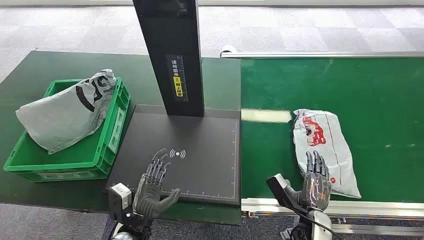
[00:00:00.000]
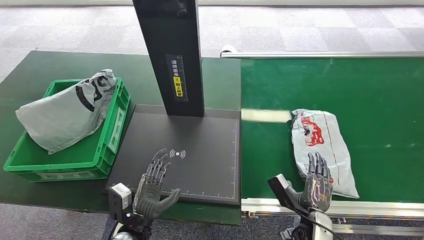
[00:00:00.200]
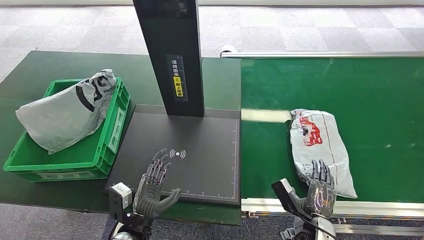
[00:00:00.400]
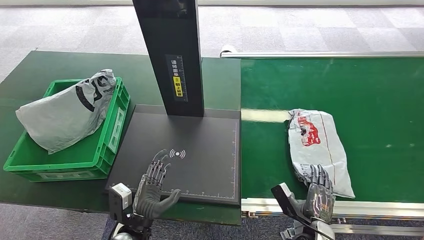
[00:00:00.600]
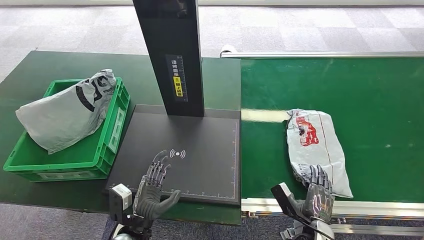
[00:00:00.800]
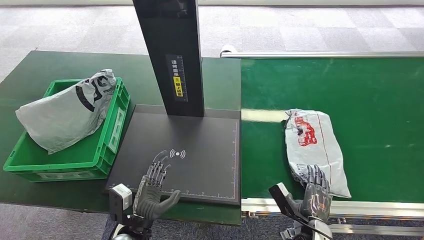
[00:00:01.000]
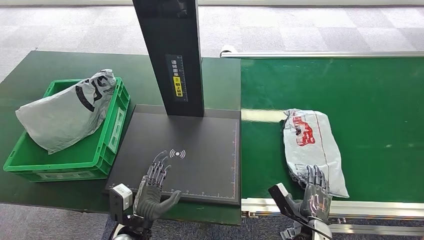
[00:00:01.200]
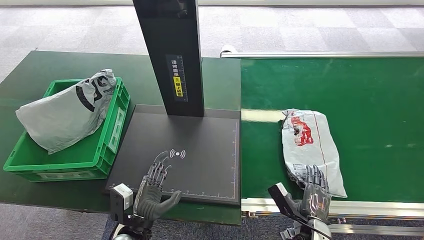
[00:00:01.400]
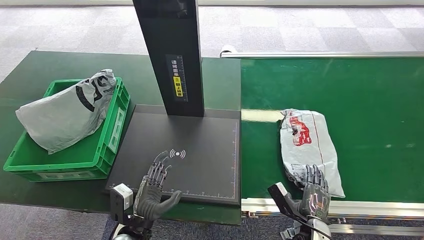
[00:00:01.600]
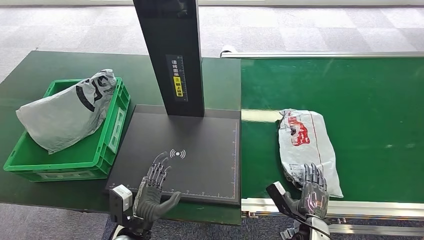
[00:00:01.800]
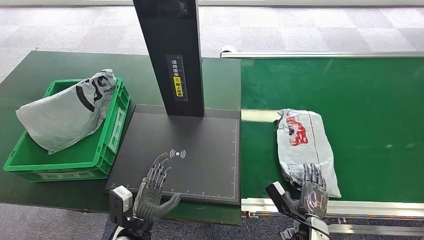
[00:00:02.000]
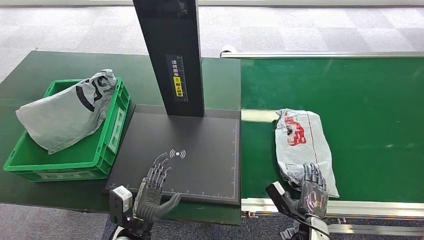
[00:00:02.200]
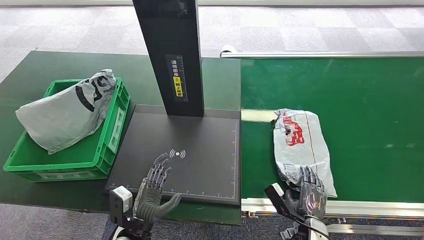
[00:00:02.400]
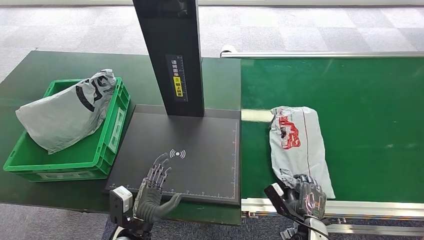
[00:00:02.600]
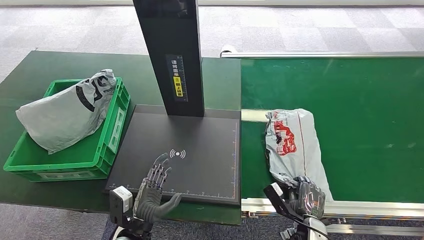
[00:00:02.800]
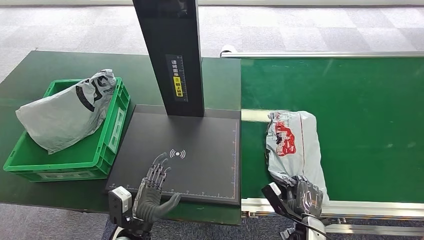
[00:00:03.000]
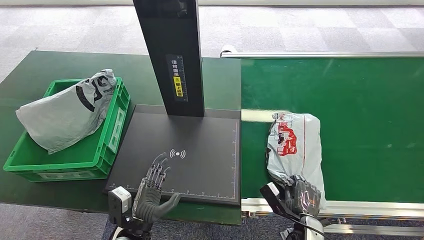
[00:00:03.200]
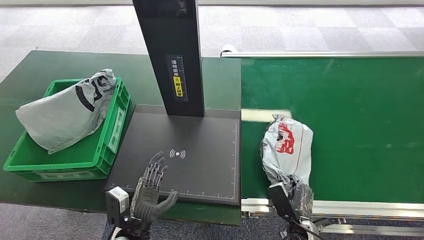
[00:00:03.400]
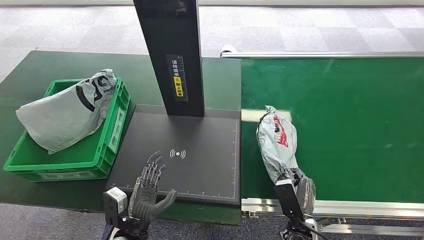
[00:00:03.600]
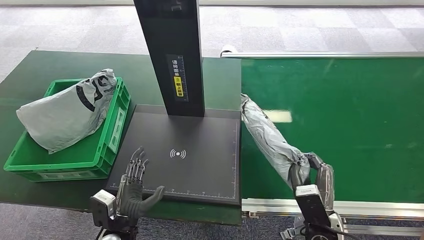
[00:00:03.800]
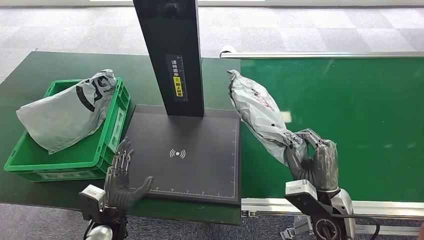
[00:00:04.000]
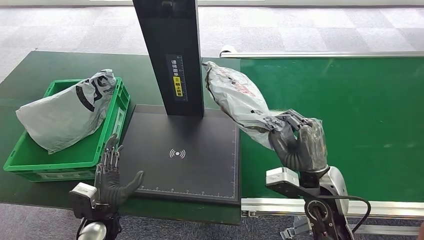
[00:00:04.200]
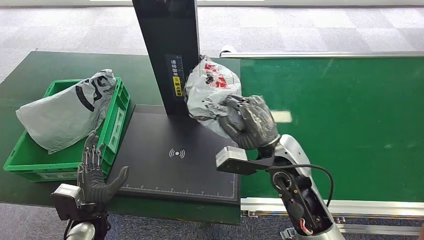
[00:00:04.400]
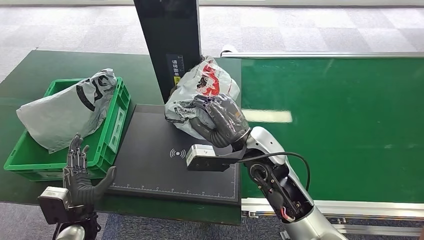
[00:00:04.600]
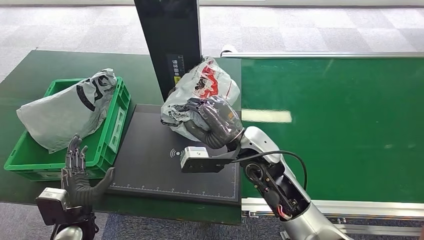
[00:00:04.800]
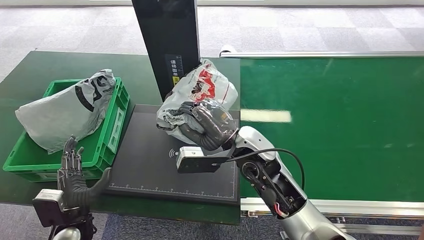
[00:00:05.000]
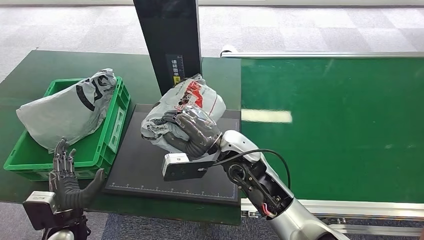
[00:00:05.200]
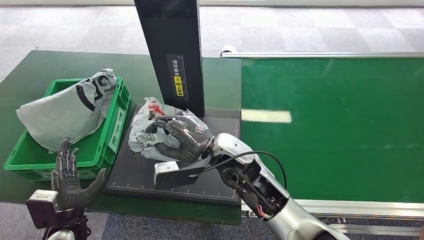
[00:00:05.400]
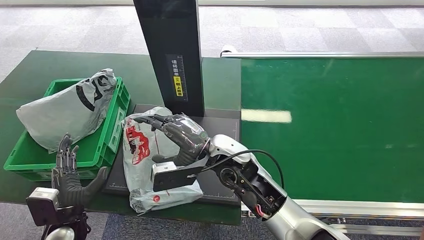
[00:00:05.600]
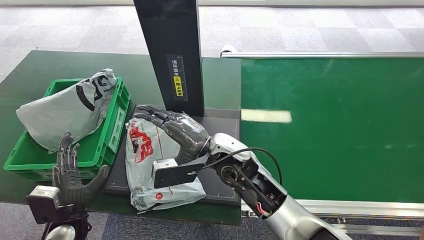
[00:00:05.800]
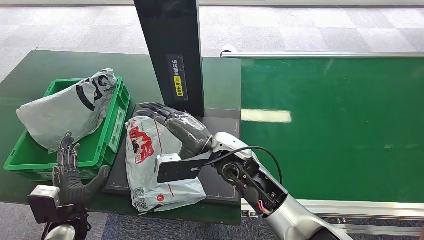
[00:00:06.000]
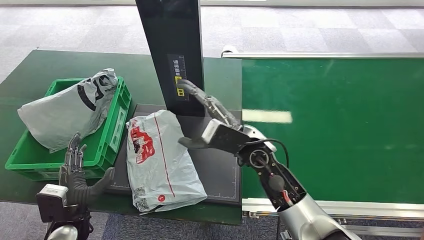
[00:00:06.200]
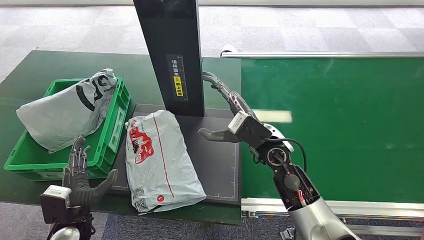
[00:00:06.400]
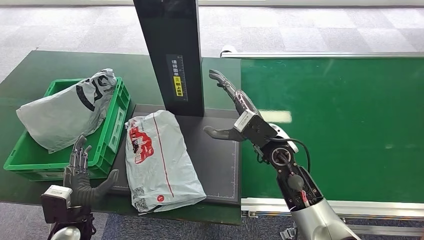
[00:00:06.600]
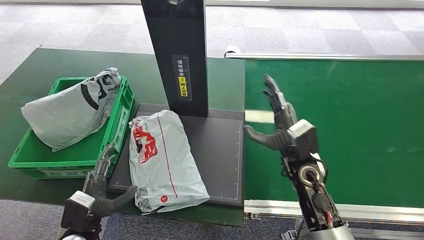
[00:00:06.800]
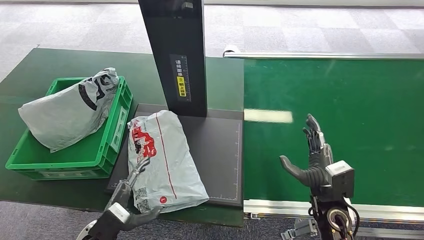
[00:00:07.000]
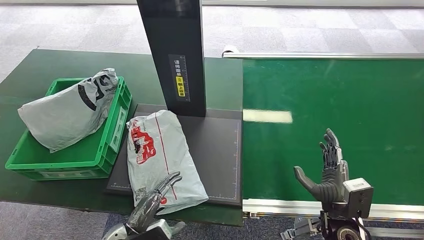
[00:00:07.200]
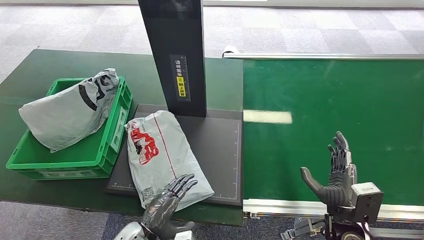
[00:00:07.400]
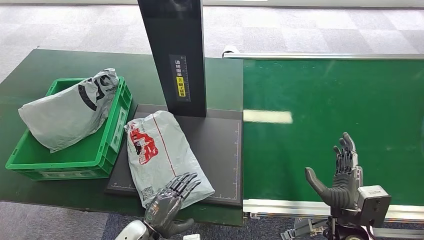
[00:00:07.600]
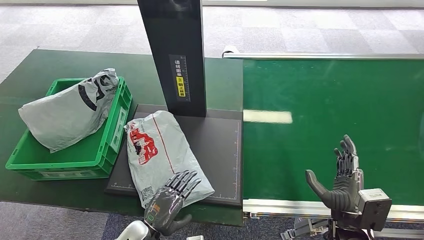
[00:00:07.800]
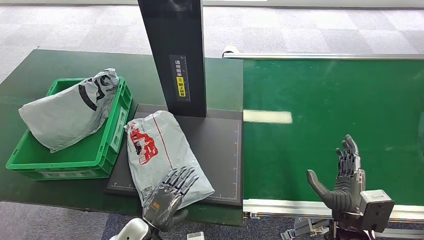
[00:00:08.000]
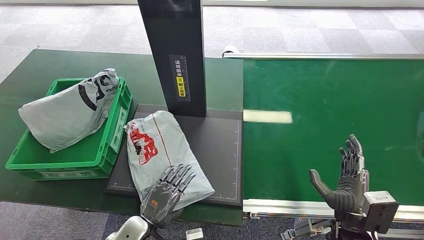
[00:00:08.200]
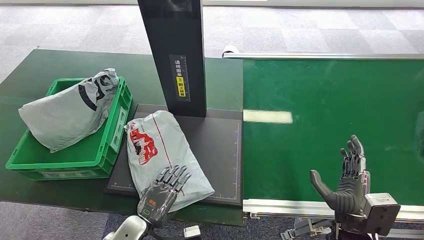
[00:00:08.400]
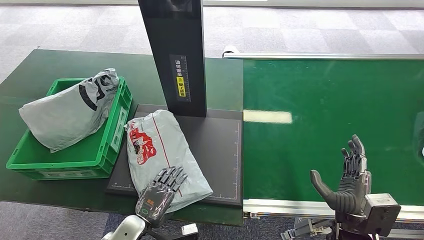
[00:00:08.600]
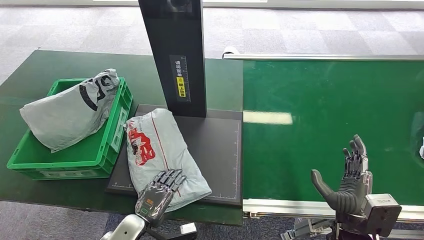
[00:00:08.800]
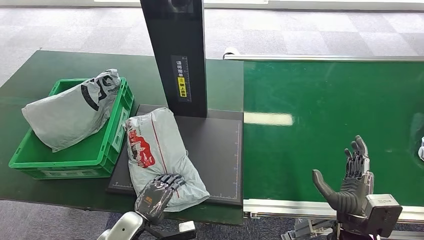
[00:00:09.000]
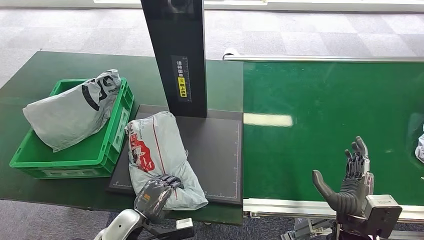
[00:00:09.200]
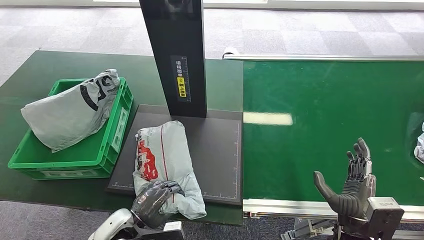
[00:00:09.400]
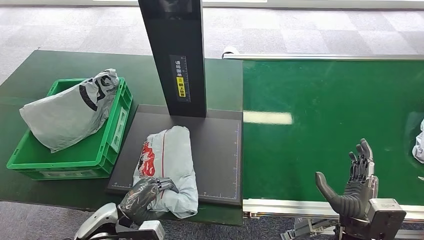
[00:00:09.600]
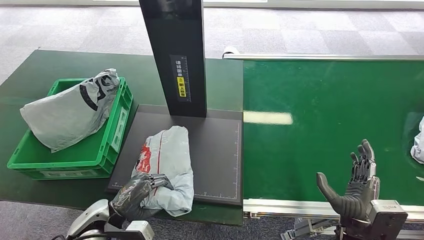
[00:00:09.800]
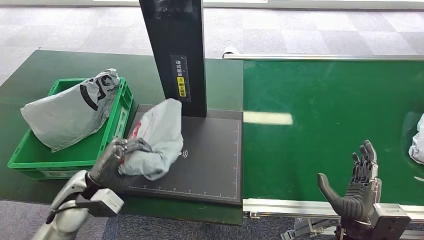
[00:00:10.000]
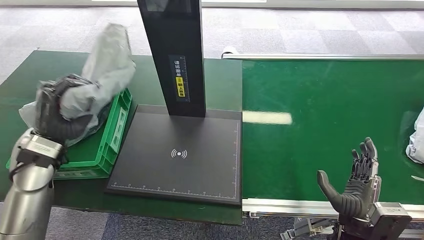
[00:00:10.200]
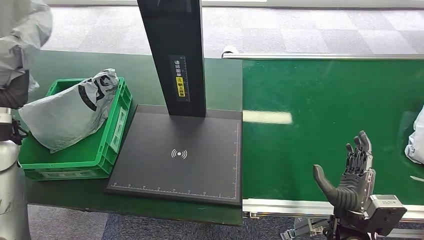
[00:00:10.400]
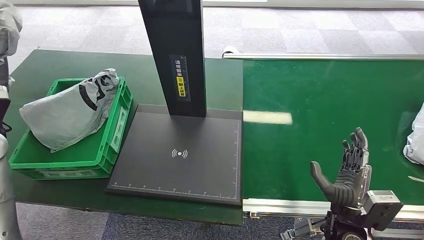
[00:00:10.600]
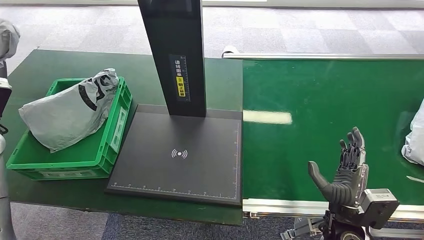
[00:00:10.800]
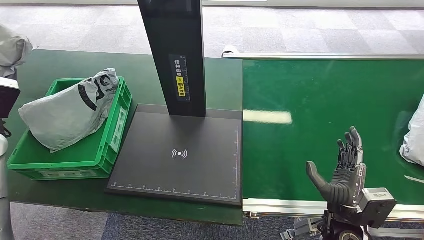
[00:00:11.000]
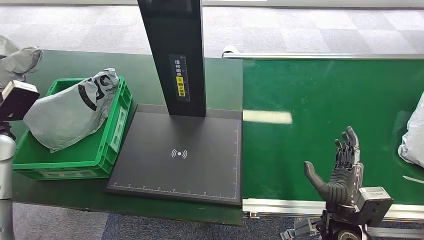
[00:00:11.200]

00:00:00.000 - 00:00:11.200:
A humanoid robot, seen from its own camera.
Task of the whole recording: Weigh the package on the weighing device and place it in the left basket.
Step, 00:00:00.000 - 00:00:04.000: Pick up the package from the conveyor belt.
Step, 00:00:04.200 - 00:00:06.400: Place the package onto the inbound machine.
Step, 00:00:06.800 - 00:00:10.200: Pick up the package from the inbound machine.
00:00:01.600 - 00:00:03.200: The hands make only small movements.
00:00:03.200 - 00:00:04.800: The left hand heads to the left, covering approximately 15 cm, while the right hand travels upward, to the left and forward by roughly 35 cm.
00:00:04.800 - 00:00:06.400: The right hand ends up approximately 5 cm from where it was.
00:00:08.000 - 00:00:09.600: The left hand moves to the left, about 5 cm.
00:00:09.600 - 00:00:11.200: The left hand goes approximately 35 cm to the left, upward and forward.

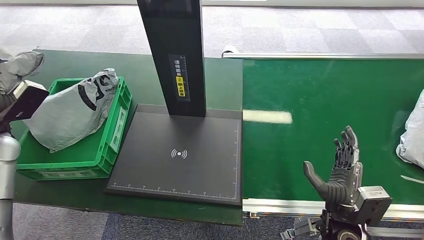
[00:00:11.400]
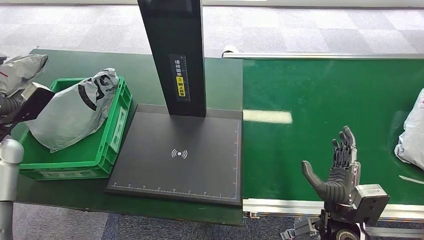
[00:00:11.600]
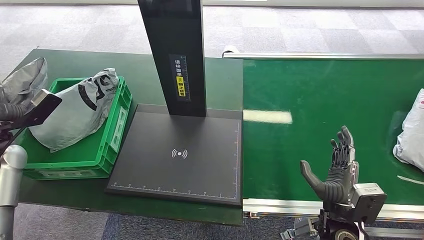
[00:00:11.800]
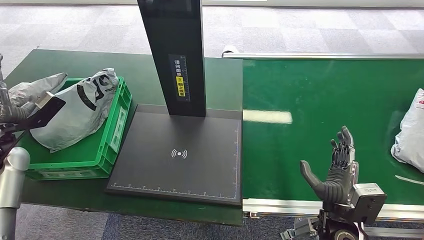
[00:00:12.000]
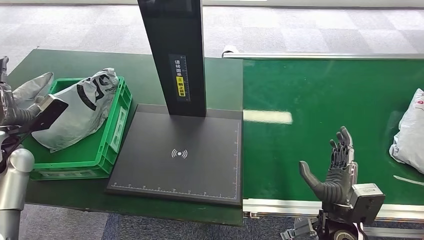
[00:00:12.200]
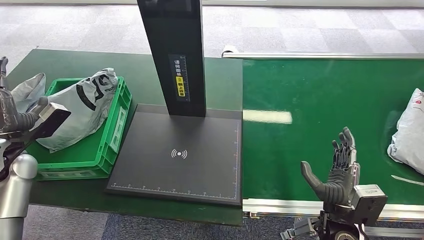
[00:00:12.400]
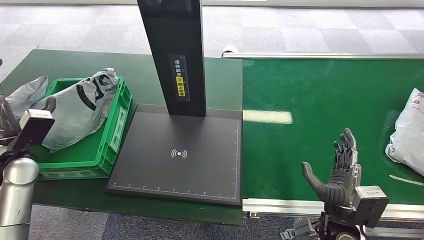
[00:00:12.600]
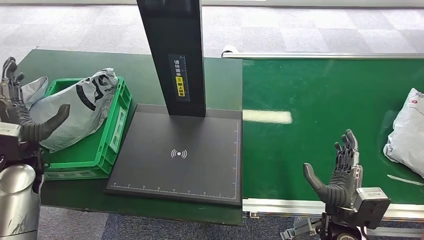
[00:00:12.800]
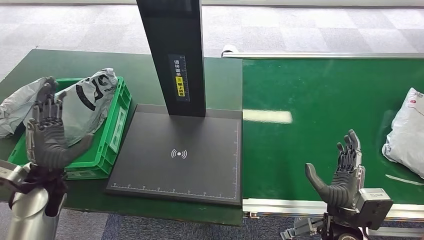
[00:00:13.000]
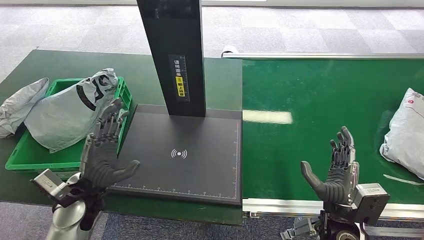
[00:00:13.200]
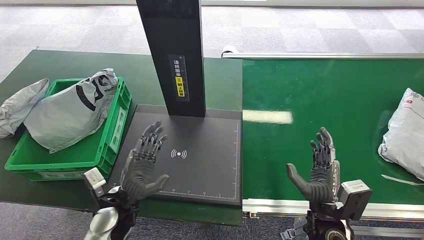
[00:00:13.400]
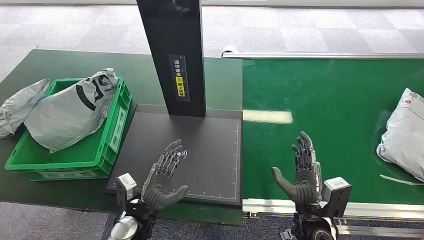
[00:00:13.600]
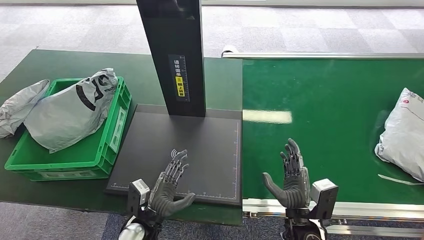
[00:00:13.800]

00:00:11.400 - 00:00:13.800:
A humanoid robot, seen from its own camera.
Task of the whole recording: Weigh the package on the weighing device and place it in the left basket.
Step, 00:00:11.400 - 00:00:13.800: Place the package into the parcel locker.
00:00:11.400 - 00:00:12.600: The left hand ends up some 5 cm from where it was.
00:00:12.600 - 00:00:13.800: The left hand moves to the right and downward, approximately 35 cm. The right hand shifts roughly 5 cm to the left.

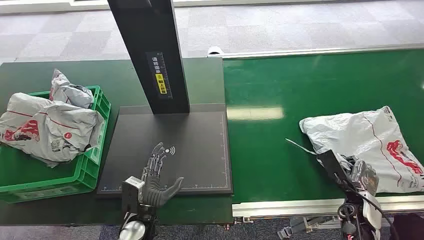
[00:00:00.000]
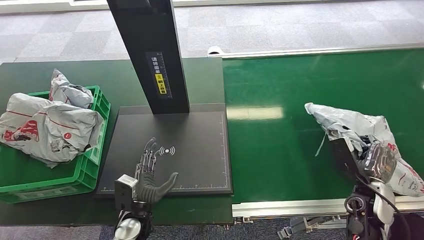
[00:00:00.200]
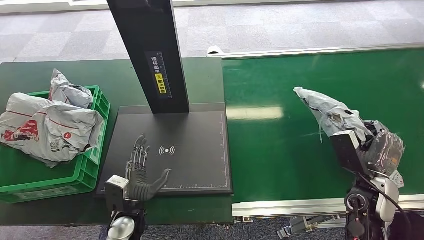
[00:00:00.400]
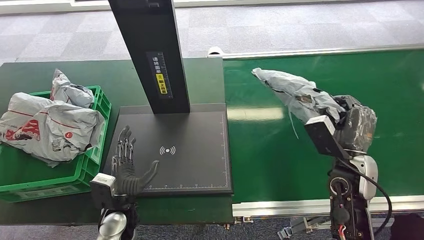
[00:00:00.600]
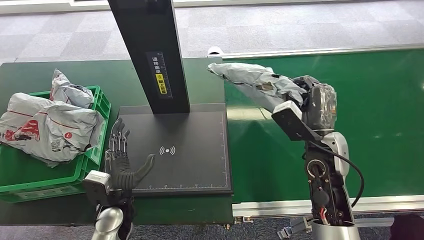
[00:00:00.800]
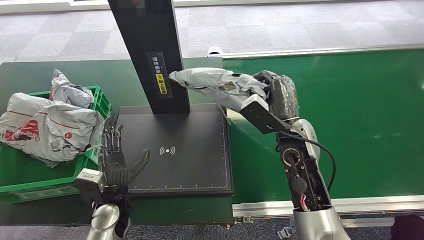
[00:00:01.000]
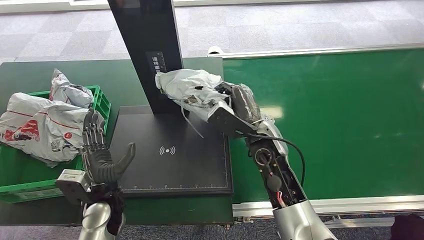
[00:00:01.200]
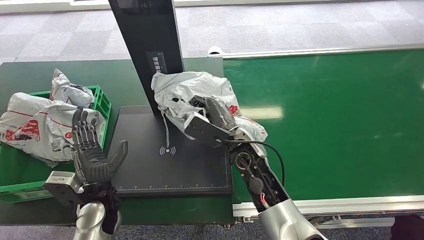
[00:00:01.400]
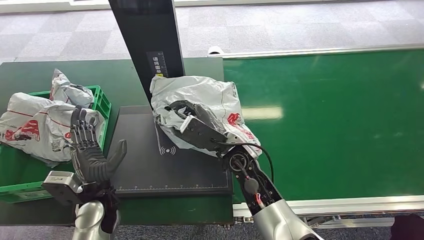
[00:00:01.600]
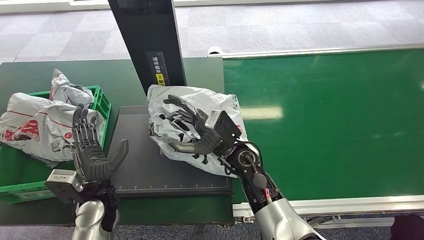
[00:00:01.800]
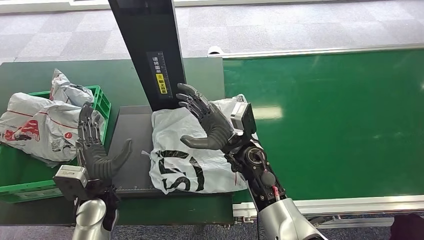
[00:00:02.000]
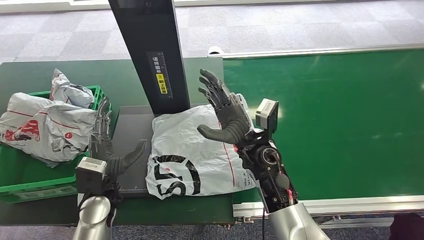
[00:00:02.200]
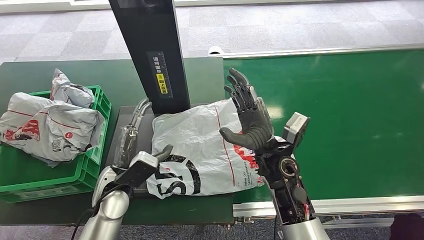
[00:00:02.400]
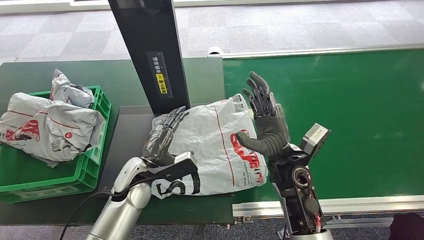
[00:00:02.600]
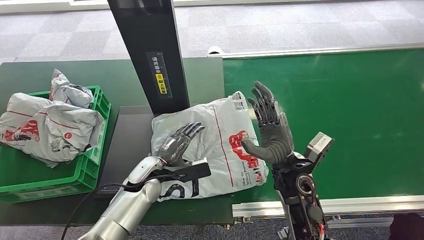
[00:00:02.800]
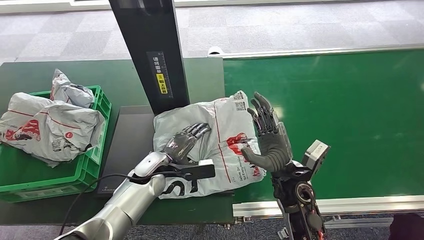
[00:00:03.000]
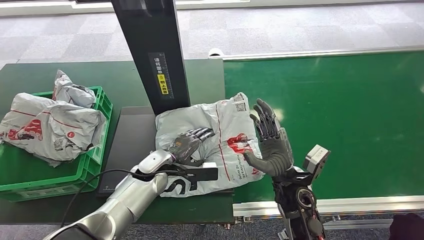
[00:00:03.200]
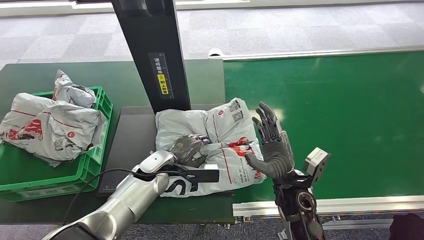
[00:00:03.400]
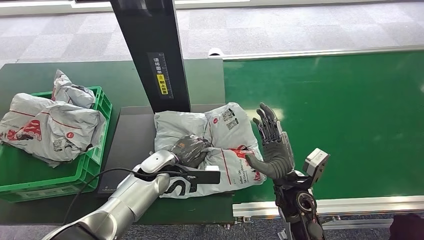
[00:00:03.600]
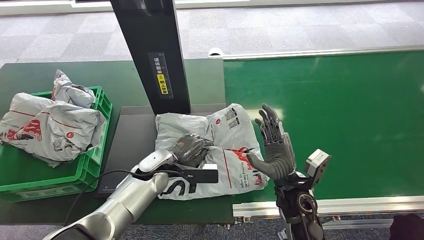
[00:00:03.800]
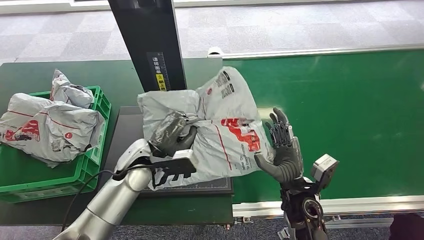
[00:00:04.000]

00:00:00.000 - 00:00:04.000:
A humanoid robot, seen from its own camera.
Task of the whole recording: Weigh the package on the weighing device and place it in the left basket.
Step, 00:00:00.000 - 00:00:01.400: Pick up the package from the conveyor belt.
Step, 00:00:01.600 - 00:00:03.400: Place the package onto the inbound machine.
00:00:02.600 - 00:00:04.000: The right hand is displaced downward and backward by some 10 cm.
